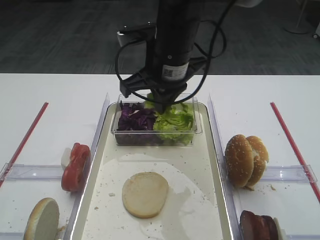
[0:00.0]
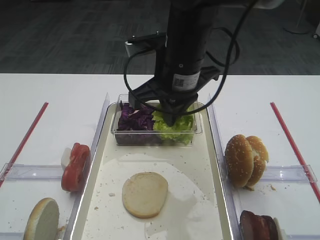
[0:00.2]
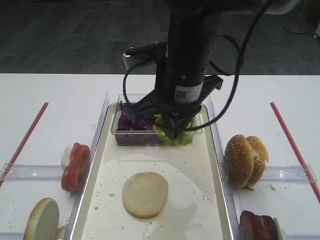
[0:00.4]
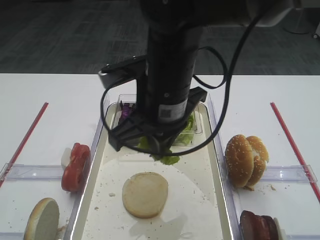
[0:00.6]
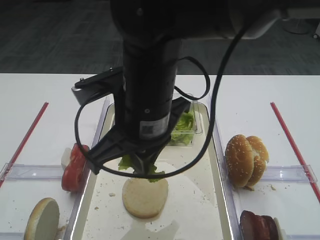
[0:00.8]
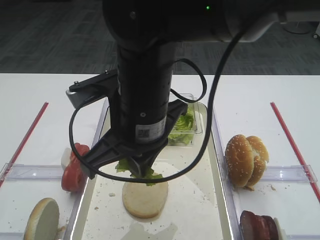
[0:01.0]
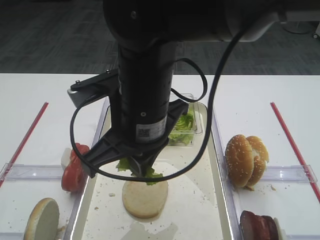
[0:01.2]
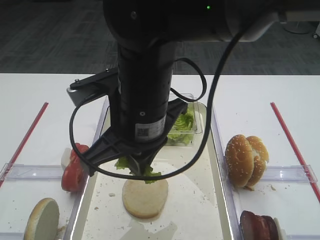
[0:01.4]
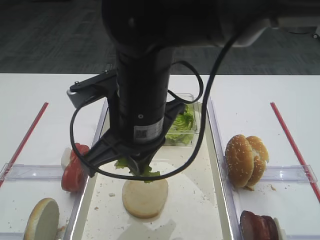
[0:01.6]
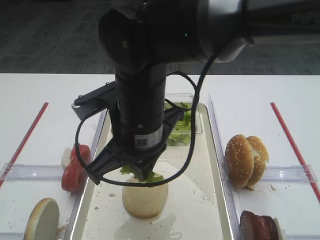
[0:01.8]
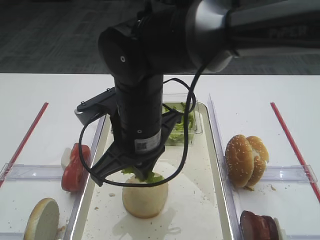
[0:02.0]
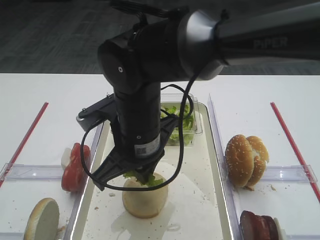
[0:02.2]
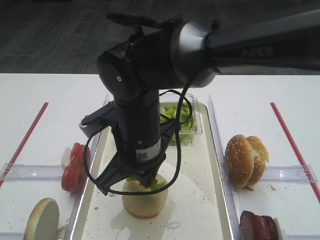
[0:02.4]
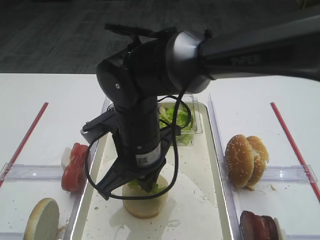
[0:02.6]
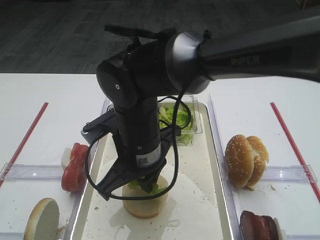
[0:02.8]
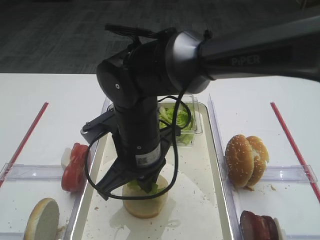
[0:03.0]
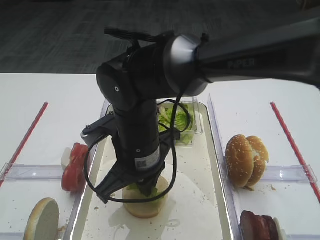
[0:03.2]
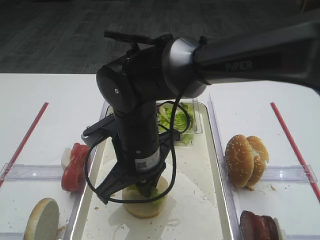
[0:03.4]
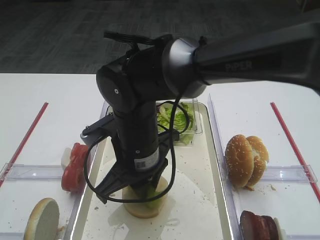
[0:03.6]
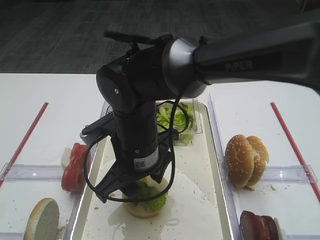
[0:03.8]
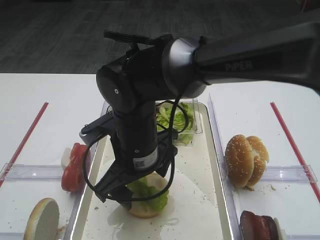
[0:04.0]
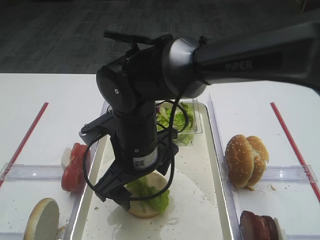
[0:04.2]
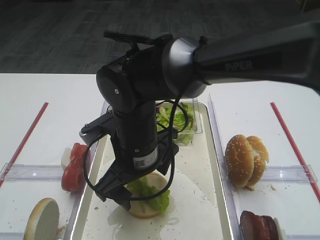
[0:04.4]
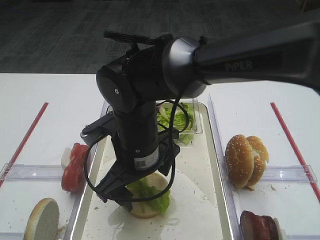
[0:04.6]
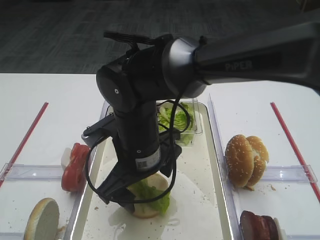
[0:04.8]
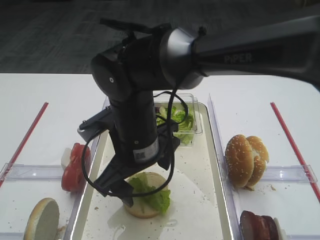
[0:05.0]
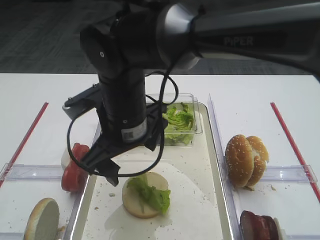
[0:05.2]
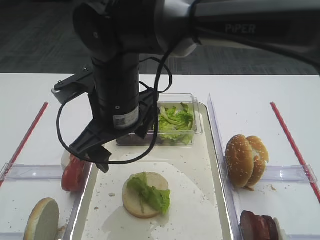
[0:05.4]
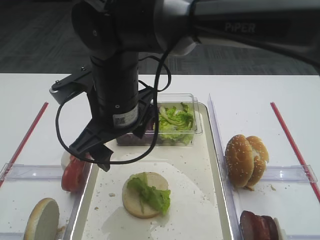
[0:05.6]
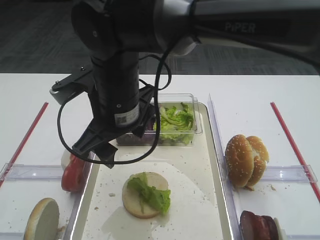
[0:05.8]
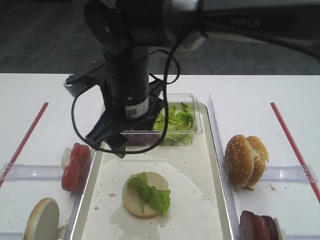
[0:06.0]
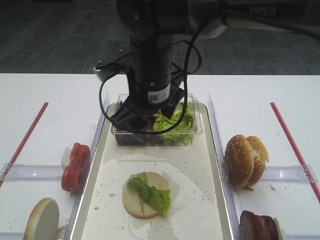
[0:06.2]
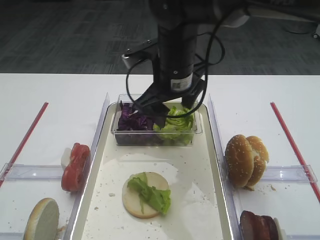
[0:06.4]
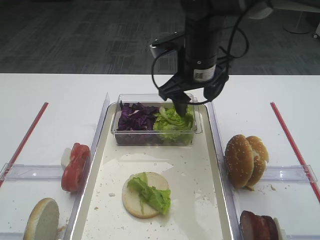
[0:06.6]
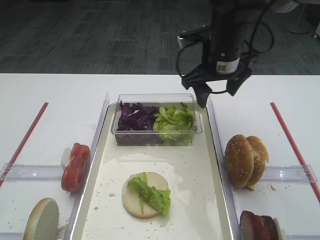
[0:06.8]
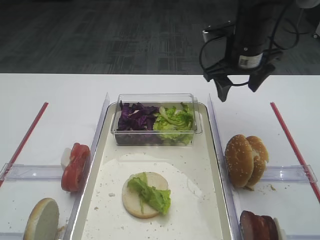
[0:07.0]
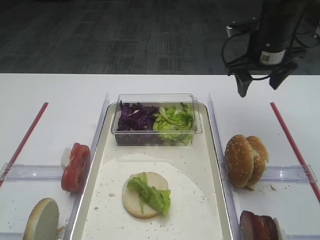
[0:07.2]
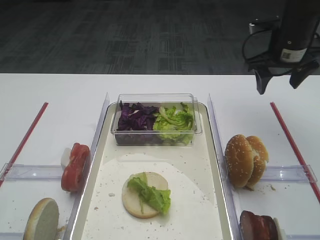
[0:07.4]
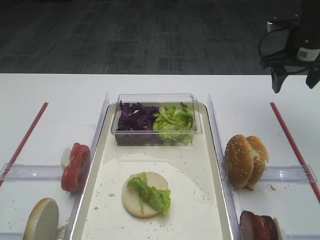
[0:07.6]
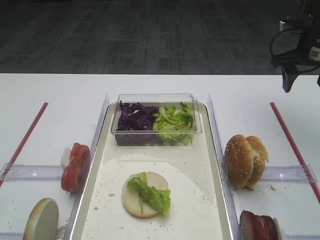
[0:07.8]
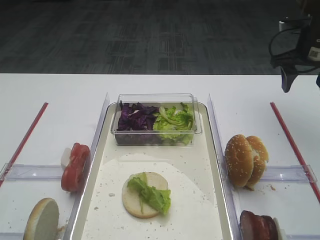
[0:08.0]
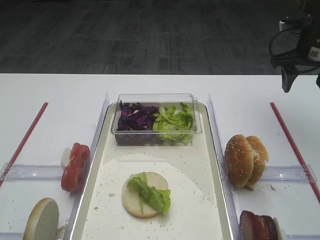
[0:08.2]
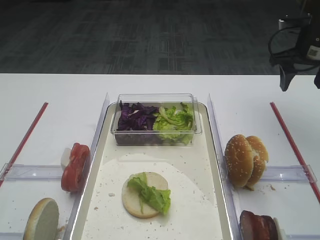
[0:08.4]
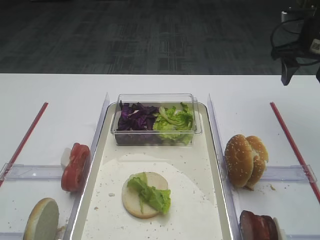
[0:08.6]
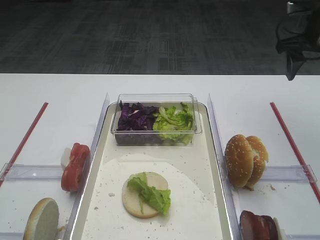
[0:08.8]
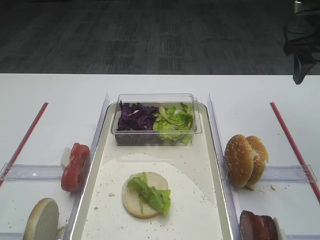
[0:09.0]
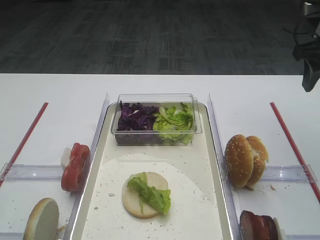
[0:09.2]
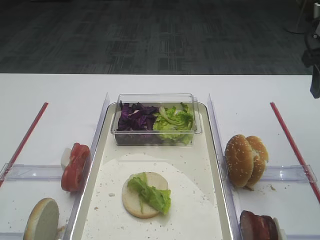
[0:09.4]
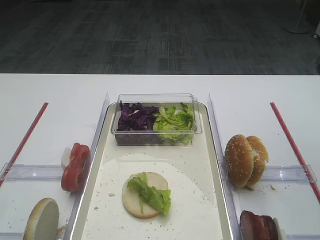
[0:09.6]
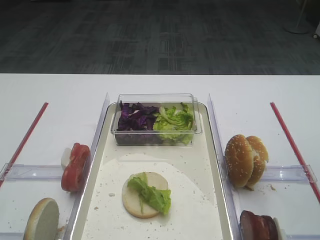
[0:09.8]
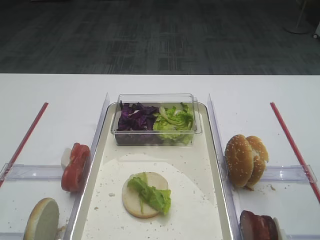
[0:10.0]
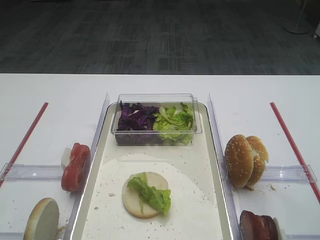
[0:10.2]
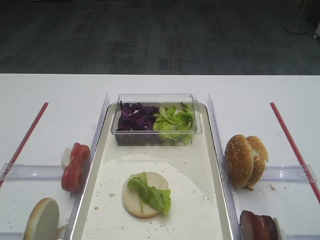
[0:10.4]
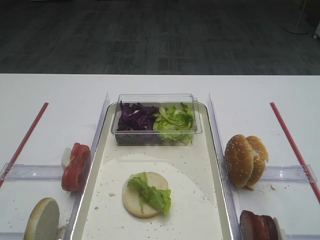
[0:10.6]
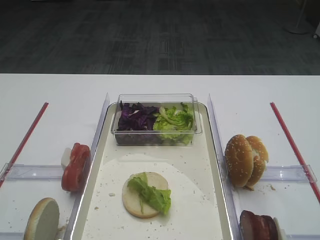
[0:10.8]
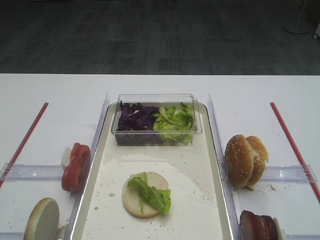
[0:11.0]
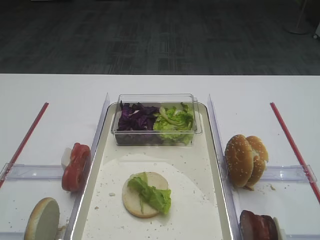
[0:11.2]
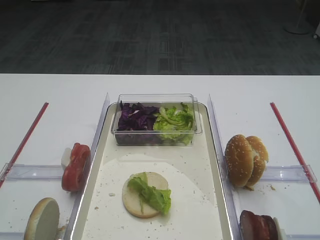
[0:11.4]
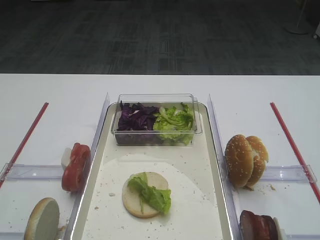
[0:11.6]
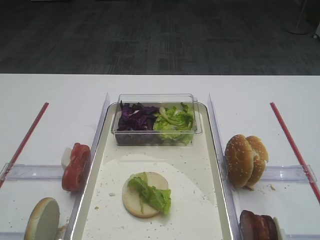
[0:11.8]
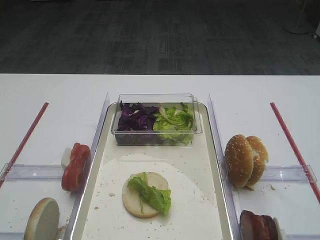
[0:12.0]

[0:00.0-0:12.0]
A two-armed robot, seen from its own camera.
Step, 0:00.0 to 0:03.8: Place the lettuce leaf on the bread slice with the right gripper.
0:00.0 to 0:01.6: The right gripper goes about 10 cm backward.
0:01.6 to 0:03.0: The right gripper travels downward by some 10 cm.
0:03.0 to 0:04.4: The right gripper opens its fingers.
0:04.4 to 0:06.0: The right gripper goes about 5 cm upward.
0:06.0 to 0:07.6: The right gripper goes approximately 35 cm to the right and forward.
0:07.6 to 0:09.0: The right gripper shifts by roughly 5 cm.
0:09.0 to 0:10.4: The right gripper is displaced backward by approximately 30 cm.

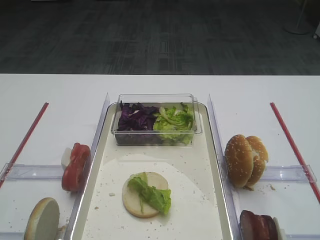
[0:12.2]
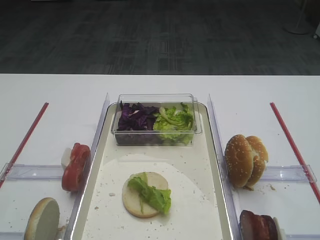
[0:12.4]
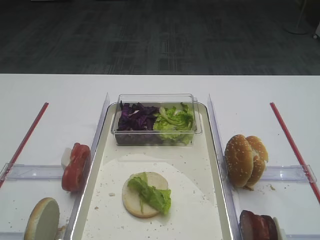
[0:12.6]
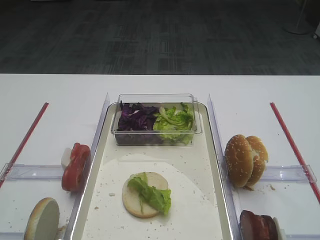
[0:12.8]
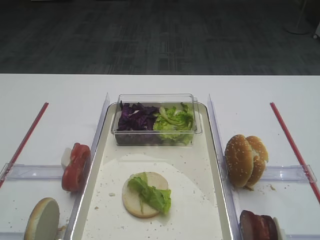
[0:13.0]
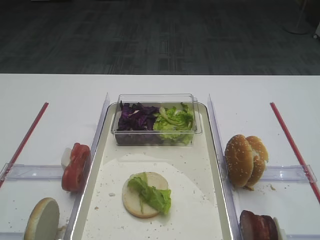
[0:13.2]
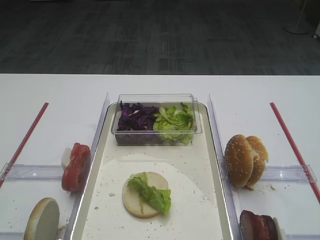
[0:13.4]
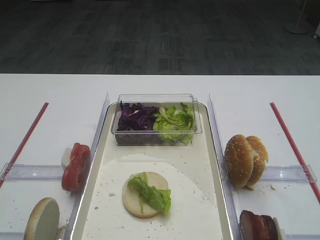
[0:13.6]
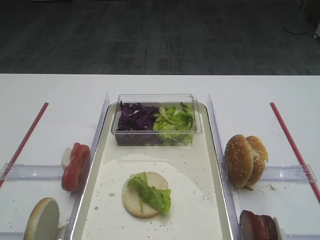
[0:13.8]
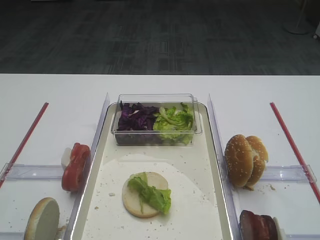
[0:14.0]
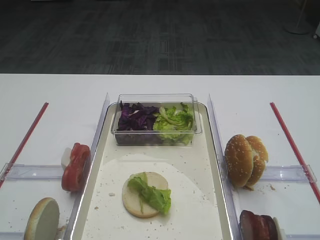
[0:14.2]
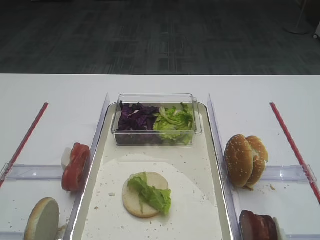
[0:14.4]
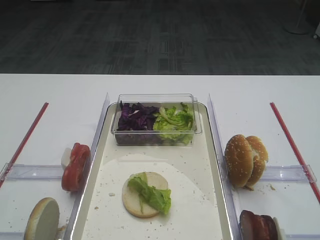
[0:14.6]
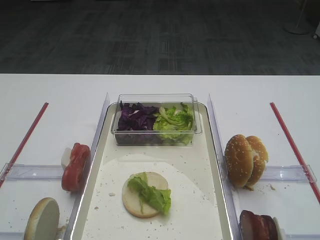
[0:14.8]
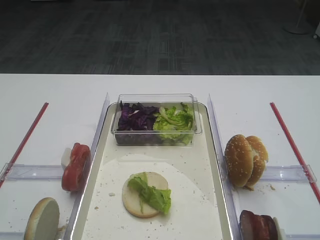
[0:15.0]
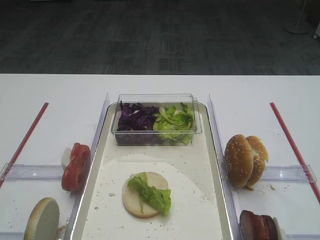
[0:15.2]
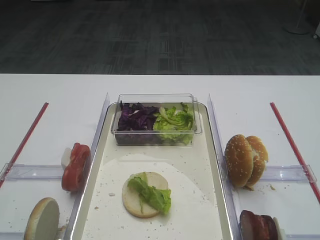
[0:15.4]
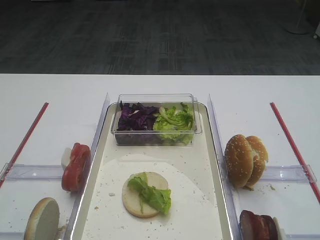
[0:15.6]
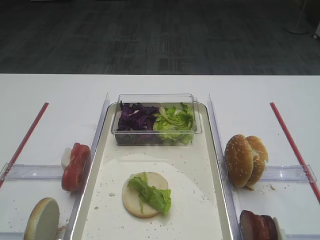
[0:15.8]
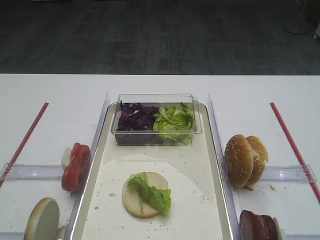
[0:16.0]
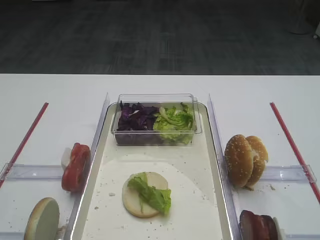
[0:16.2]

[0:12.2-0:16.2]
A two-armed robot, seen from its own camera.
0:12.2 to 0:16.2: Both grippers stay about where they are.

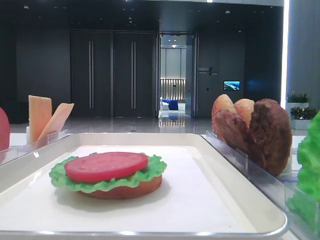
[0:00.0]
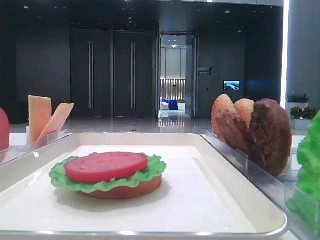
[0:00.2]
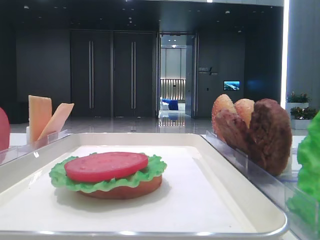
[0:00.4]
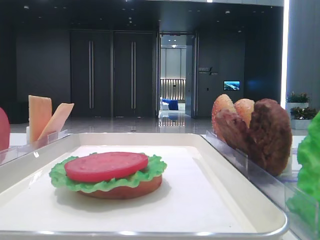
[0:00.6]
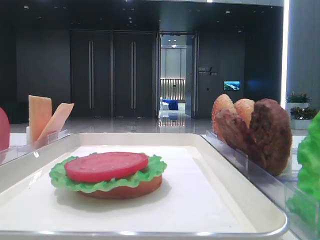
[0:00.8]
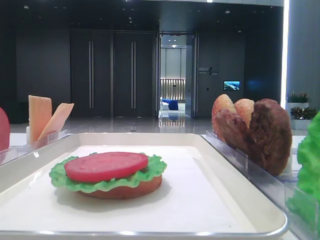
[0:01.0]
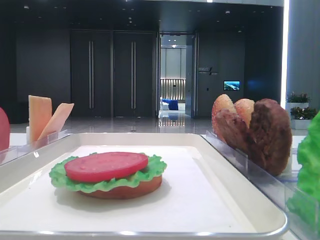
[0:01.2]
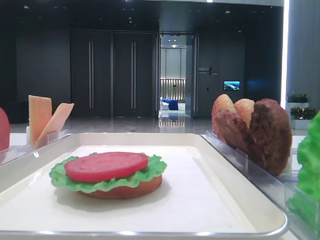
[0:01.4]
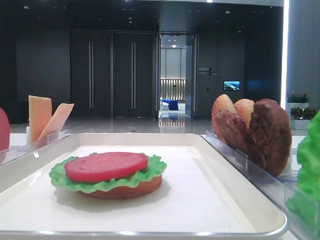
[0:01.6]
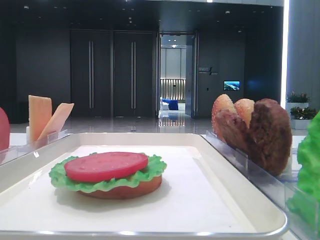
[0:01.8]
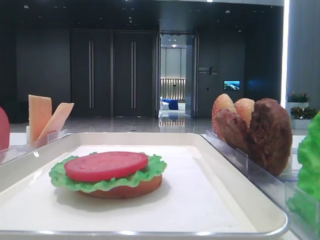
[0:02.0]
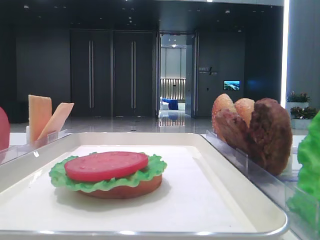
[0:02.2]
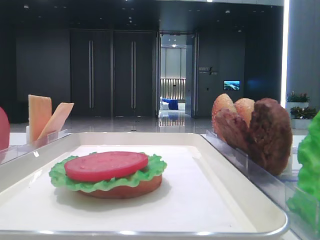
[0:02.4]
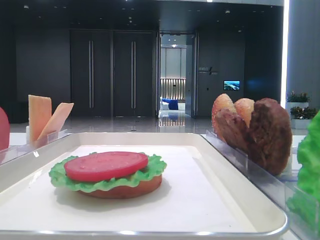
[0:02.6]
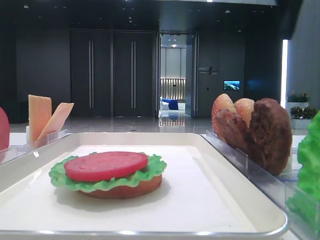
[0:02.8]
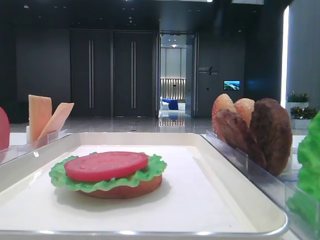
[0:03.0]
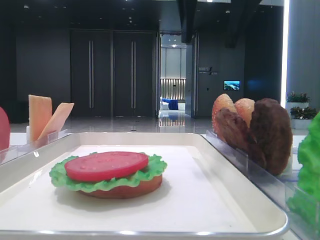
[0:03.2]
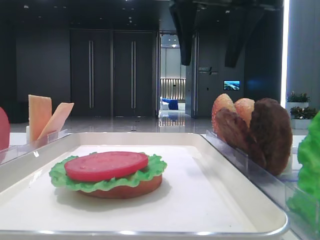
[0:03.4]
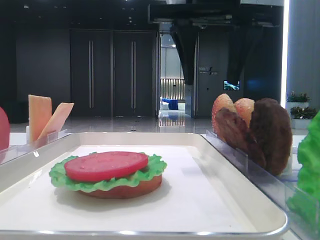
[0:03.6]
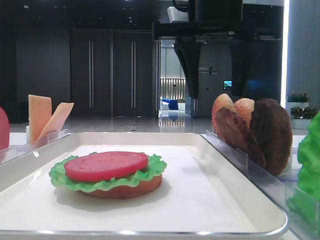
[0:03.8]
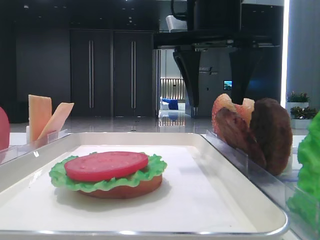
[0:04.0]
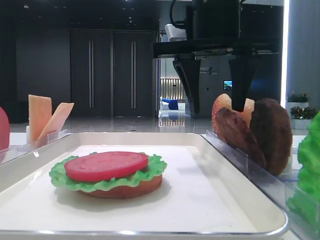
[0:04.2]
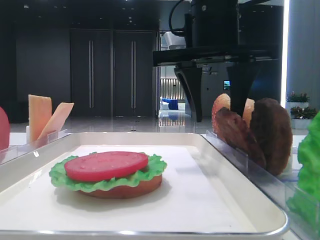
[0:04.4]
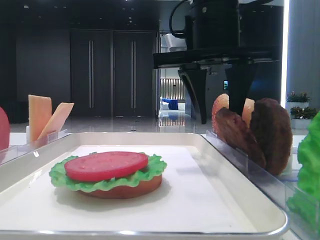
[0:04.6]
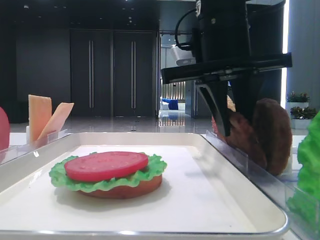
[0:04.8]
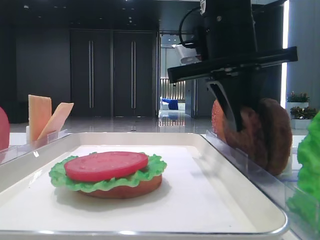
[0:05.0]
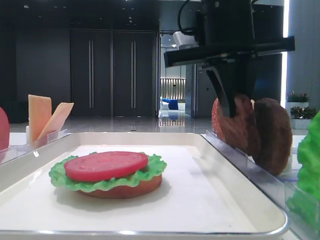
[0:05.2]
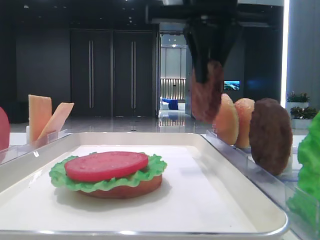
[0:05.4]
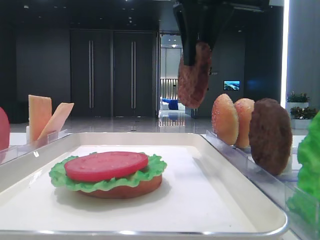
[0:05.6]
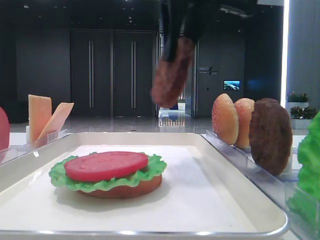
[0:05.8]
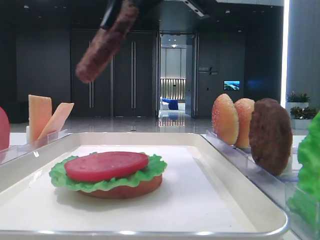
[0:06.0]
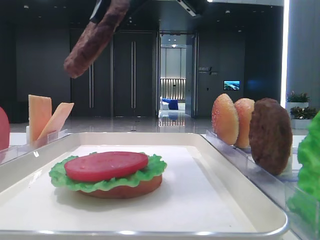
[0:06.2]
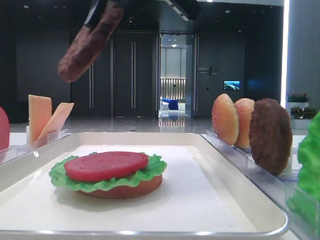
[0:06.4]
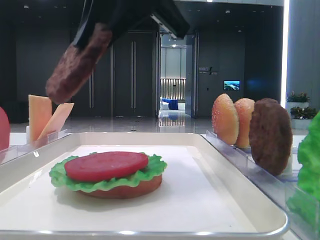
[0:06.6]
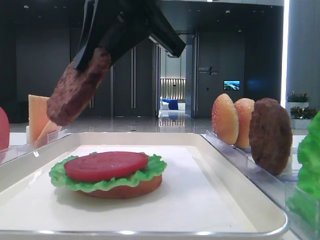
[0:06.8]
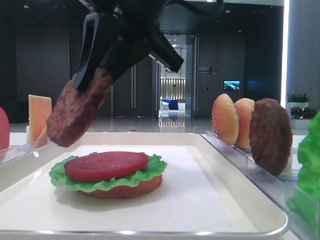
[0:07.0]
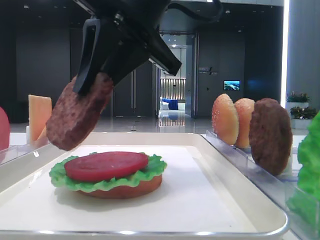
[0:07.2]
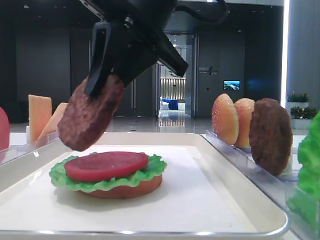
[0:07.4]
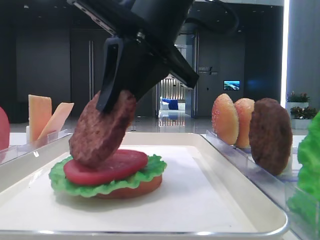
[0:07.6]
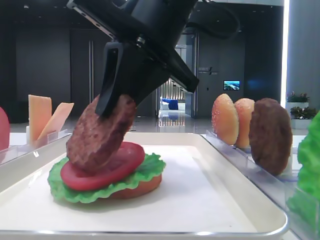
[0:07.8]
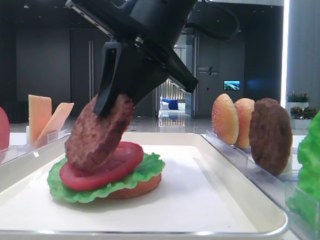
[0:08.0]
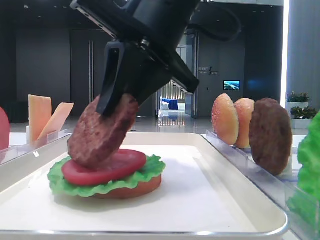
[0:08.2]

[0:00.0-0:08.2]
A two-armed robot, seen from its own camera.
Step, 0:00.0 to 0:05.0: Grab the patty with the right hand.
0:01.6 to 0:03.2: The right gripper shifts approximately 35 cm forward and to the left.
0:03.2 to 0:05.0: The right gripper moves downward, roughly 10 cm, and closes its fingers.
0:05.0 to 0:06.6: The right gripper moves to the left and upward, some 10 cm.
0:06.6 to 0:08.2: The right gripper is displaced downward by approximately 5 cm.
